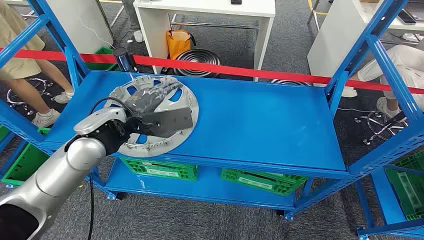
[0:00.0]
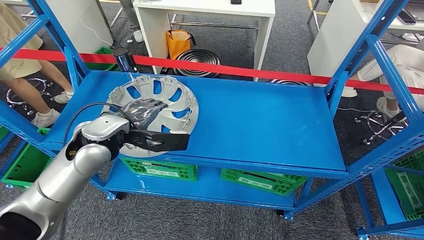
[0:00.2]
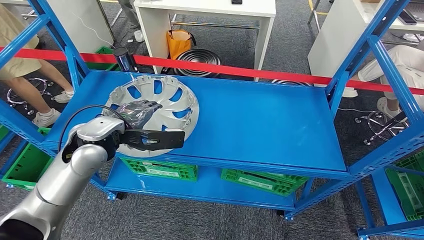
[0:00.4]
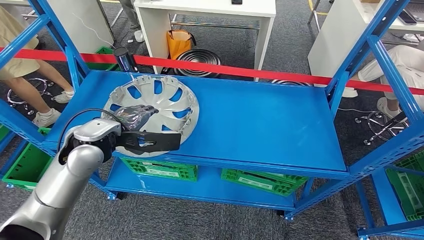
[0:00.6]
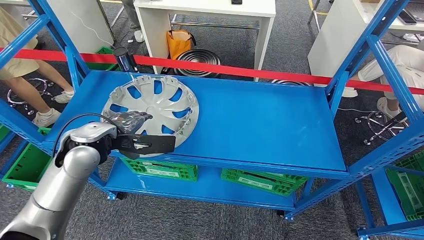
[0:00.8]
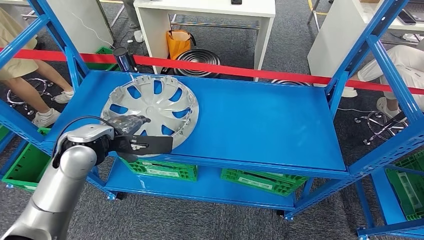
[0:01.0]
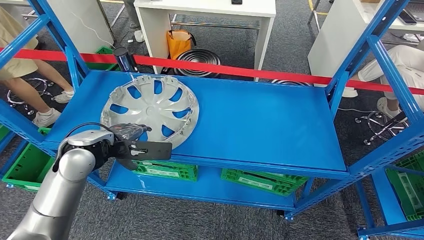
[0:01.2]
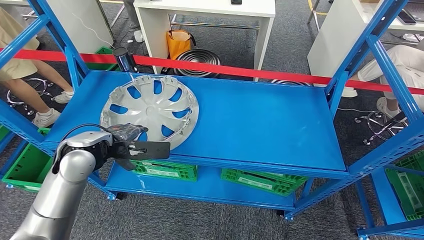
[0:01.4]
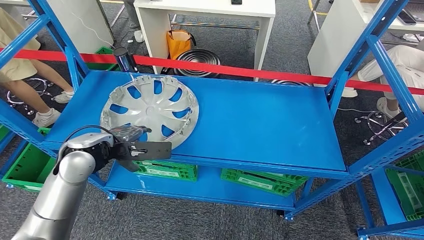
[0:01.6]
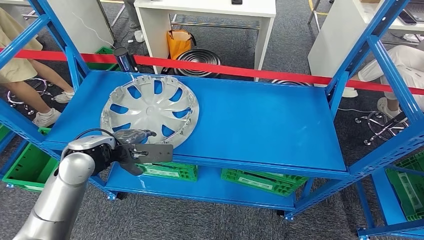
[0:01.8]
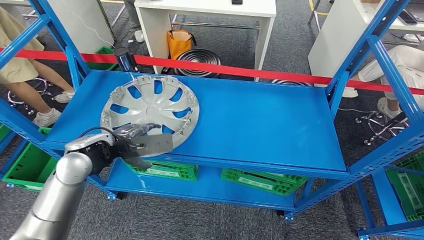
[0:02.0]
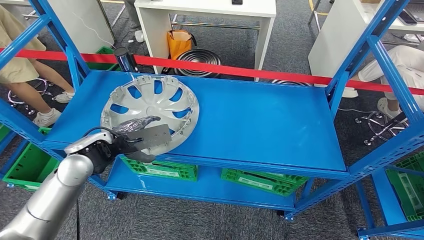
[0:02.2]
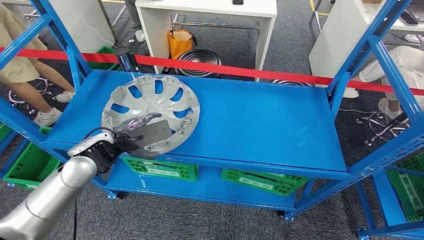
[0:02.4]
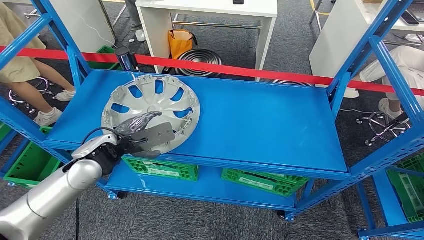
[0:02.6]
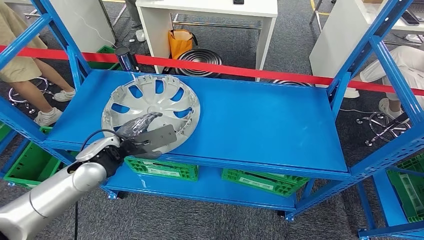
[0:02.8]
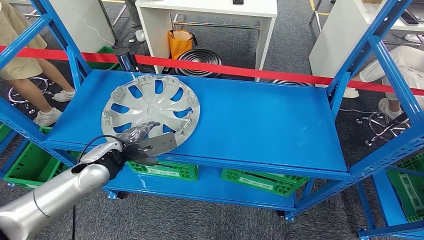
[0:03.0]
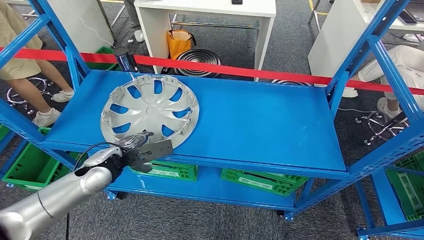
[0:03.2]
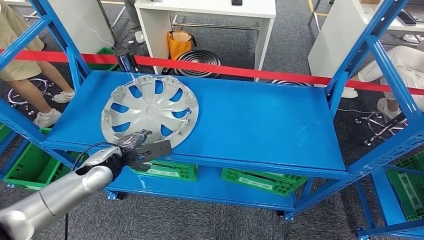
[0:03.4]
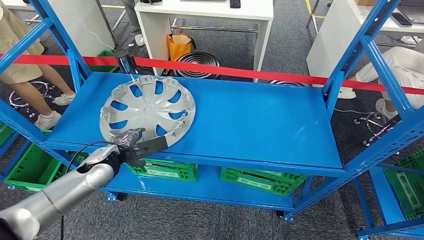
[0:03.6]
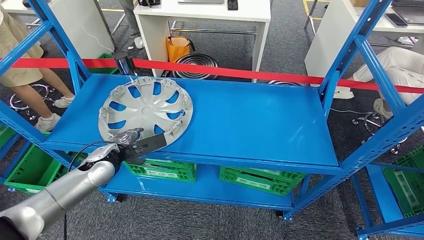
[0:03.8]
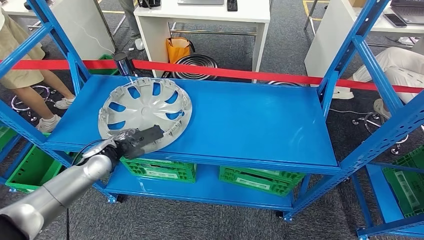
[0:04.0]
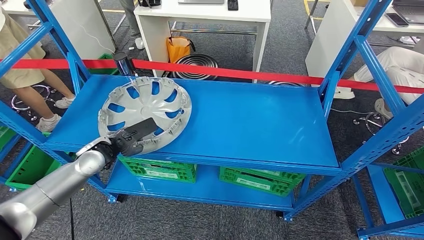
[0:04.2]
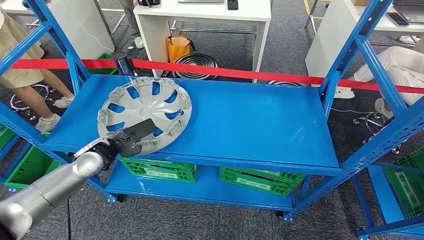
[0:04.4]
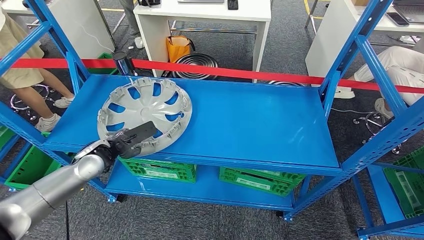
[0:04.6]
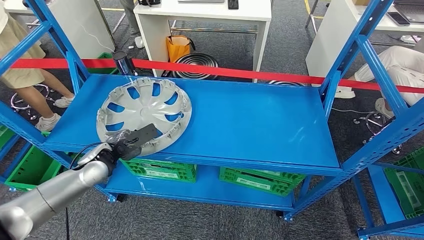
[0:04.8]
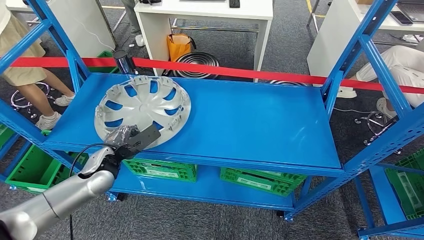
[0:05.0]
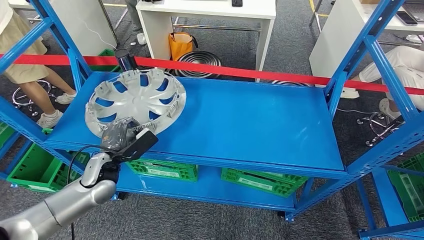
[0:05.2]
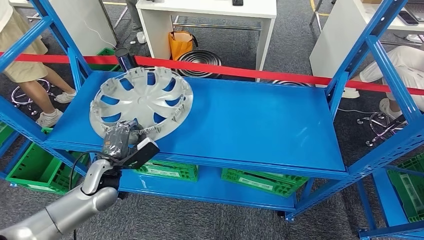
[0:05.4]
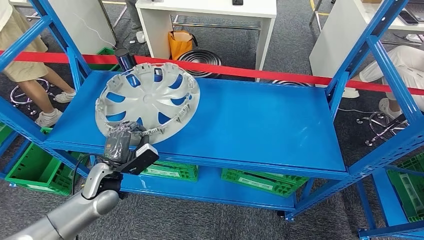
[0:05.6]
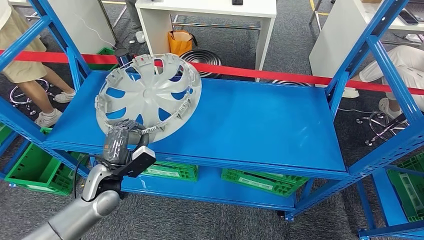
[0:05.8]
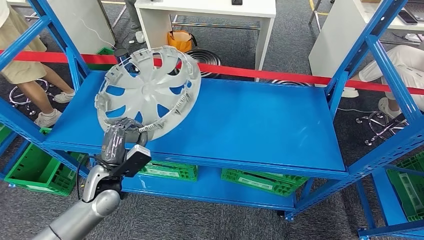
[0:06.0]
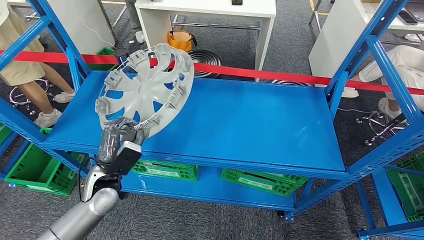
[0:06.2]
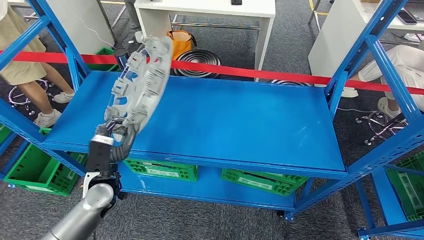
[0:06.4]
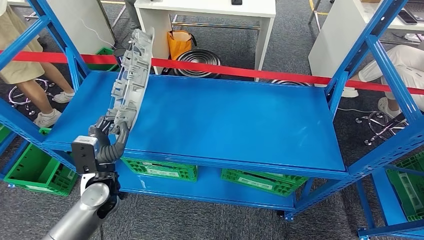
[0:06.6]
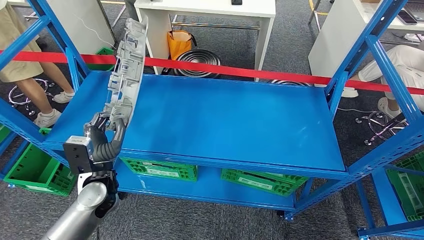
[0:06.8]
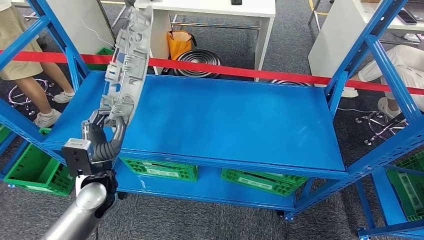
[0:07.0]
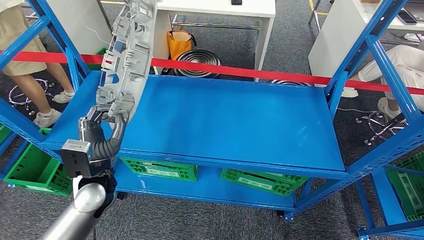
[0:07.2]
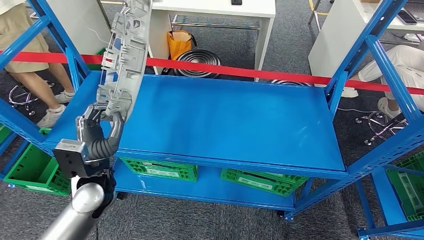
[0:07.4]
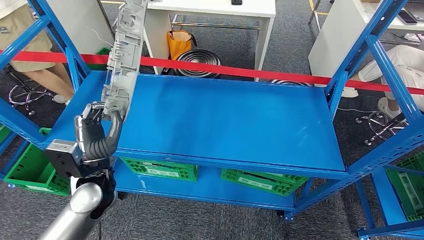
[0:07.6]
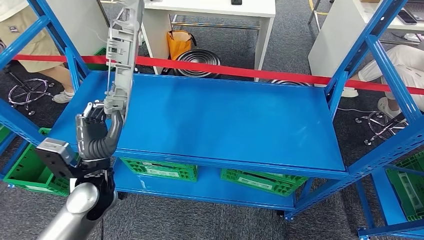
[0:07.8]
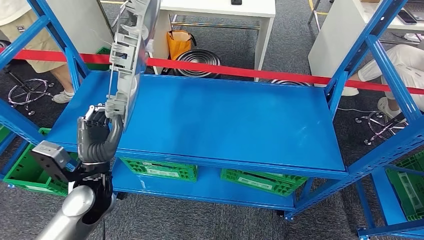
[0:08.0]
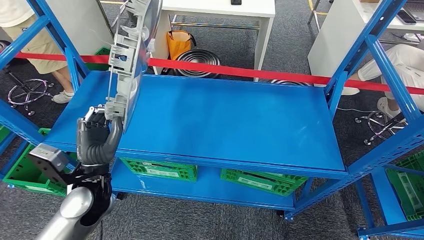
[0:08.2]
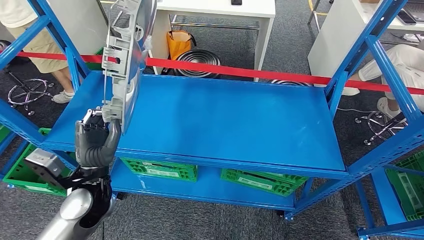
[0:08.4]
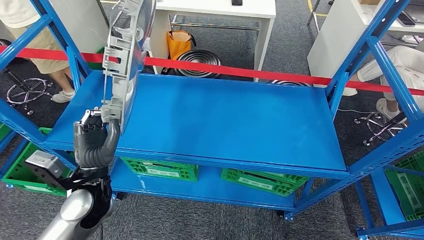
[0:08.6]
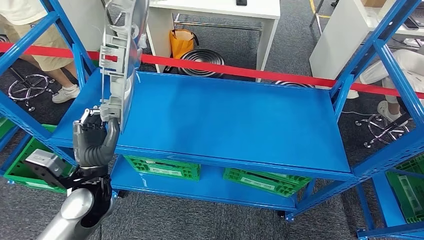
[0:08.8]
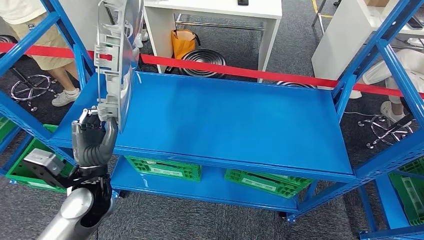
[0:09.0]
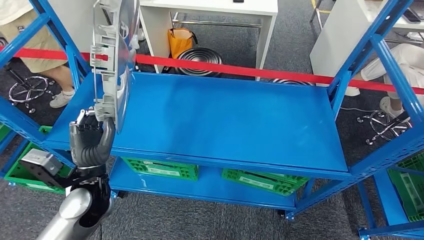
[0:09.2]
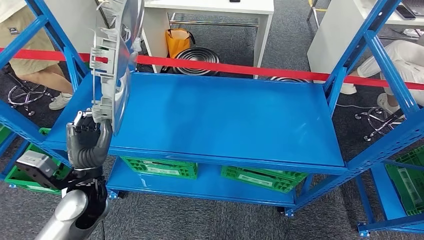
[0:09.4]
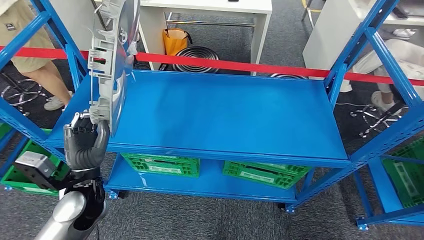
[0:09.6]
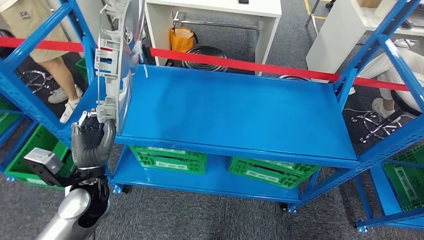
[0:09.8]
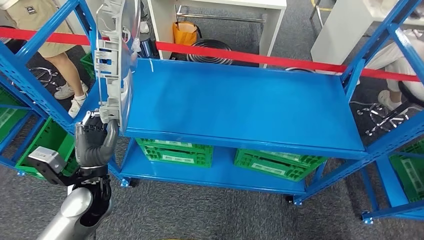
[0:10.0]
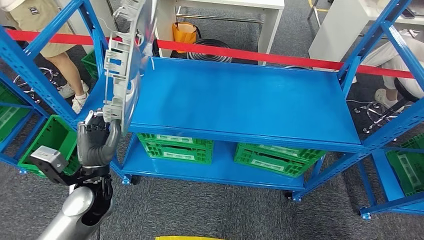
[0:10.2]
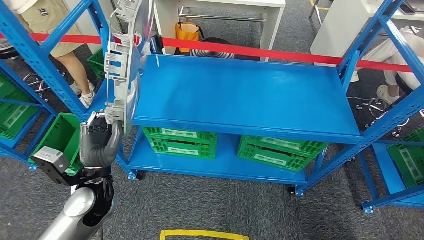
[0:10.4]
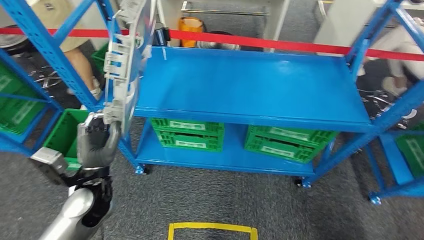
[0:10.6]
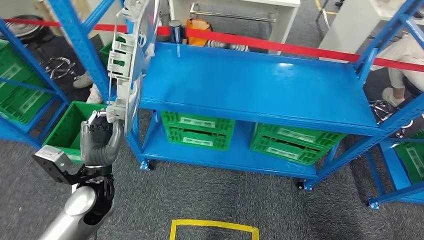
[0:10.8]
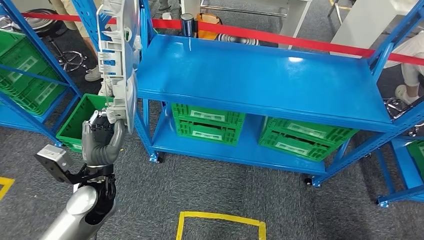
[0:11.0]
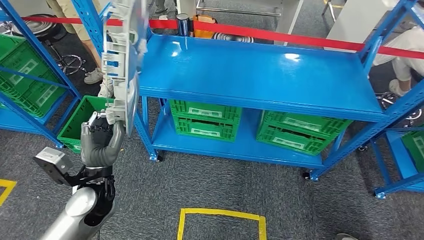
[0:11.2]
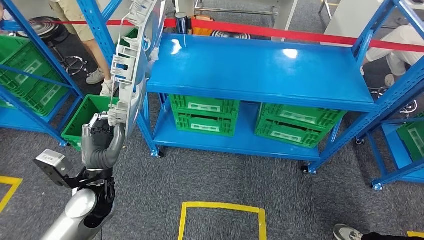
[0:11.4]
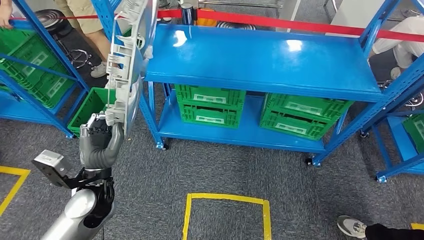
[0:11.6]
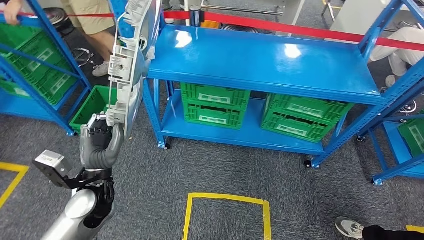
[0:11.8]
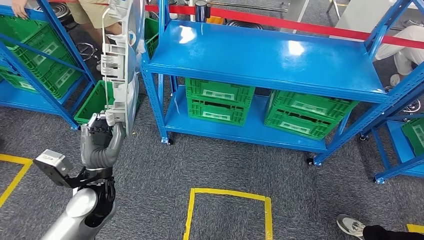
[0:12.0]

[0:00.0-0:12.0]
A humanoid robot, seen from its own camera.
Step, 0:00.0 to 0:07.2: Pick up the small component from the shelf.
0:01.6 to 0:03.0: The left hand heads downward, covering roughly 5 cm.
0:06.0 to 0:07.6: The left hand is displaced upward by roughly 5 cm.

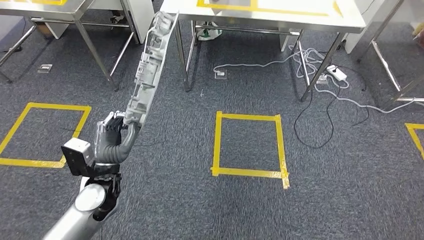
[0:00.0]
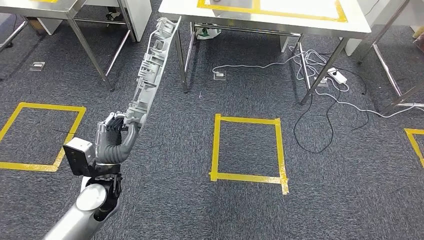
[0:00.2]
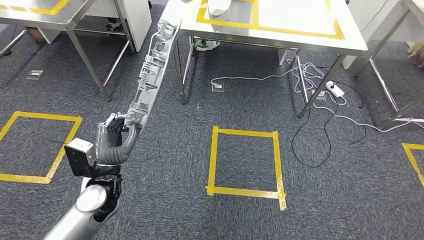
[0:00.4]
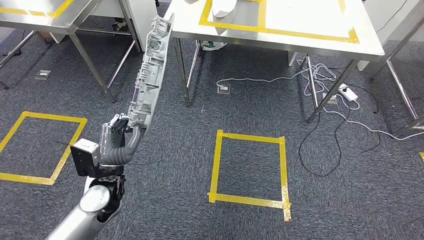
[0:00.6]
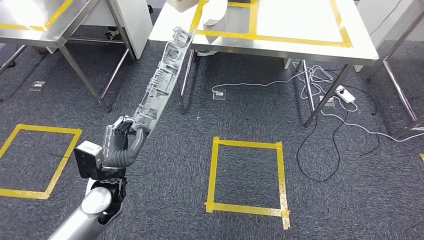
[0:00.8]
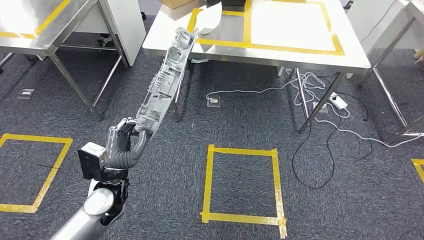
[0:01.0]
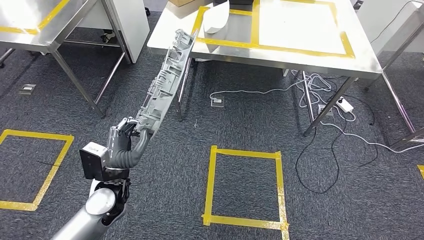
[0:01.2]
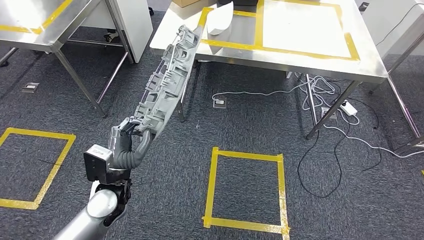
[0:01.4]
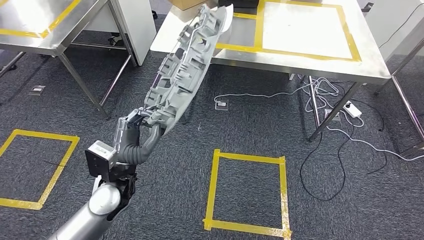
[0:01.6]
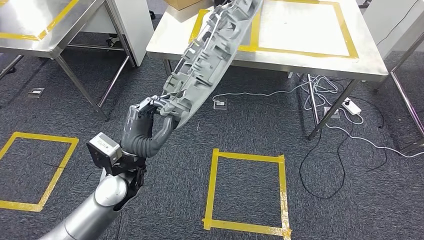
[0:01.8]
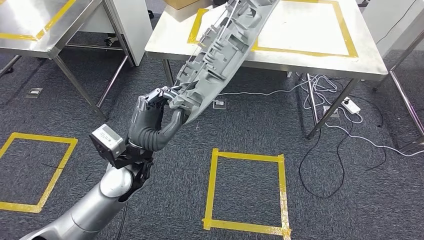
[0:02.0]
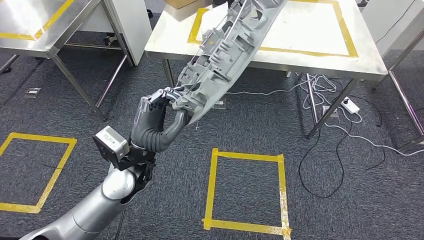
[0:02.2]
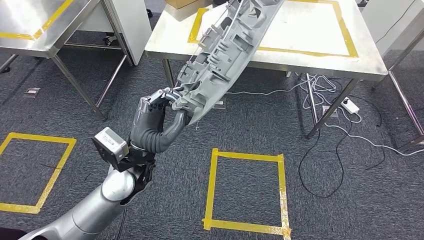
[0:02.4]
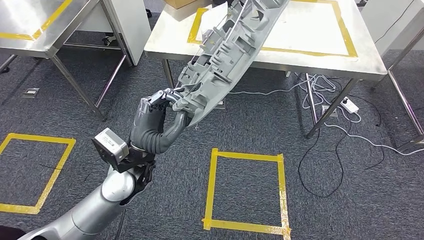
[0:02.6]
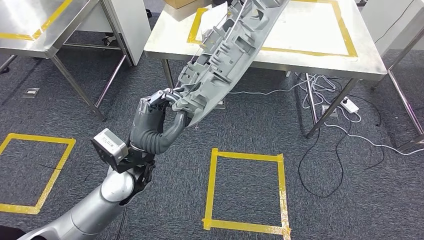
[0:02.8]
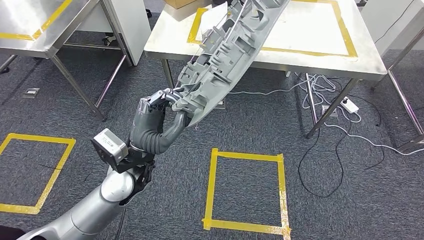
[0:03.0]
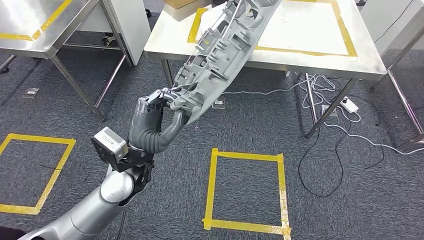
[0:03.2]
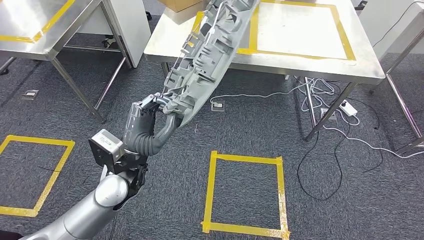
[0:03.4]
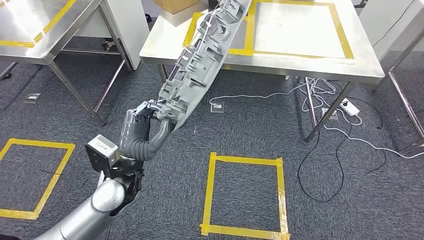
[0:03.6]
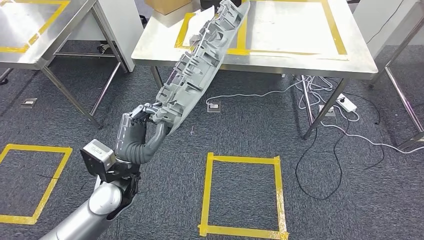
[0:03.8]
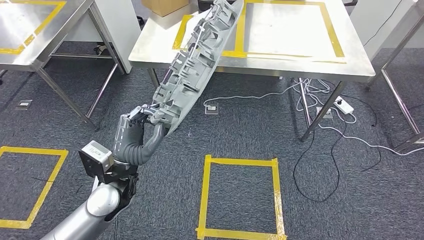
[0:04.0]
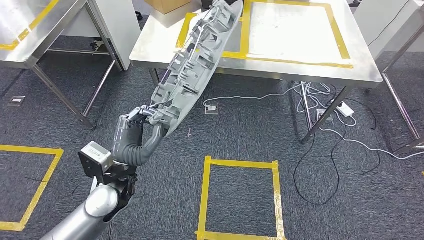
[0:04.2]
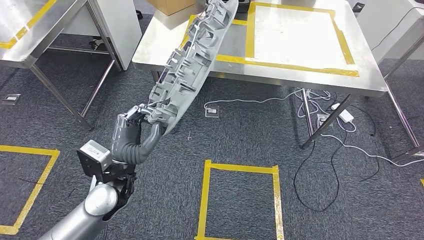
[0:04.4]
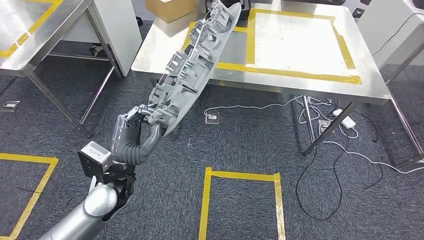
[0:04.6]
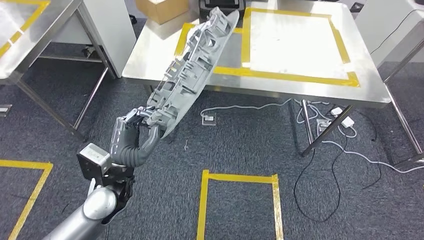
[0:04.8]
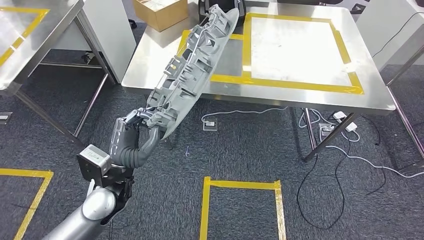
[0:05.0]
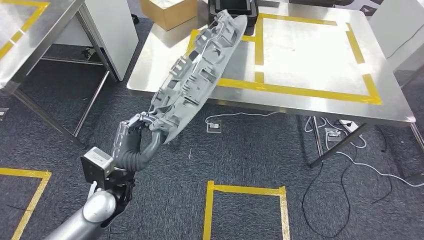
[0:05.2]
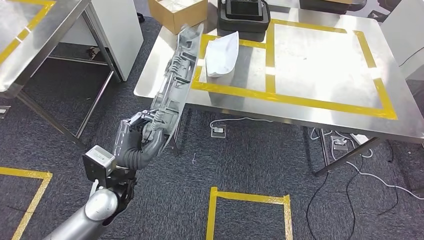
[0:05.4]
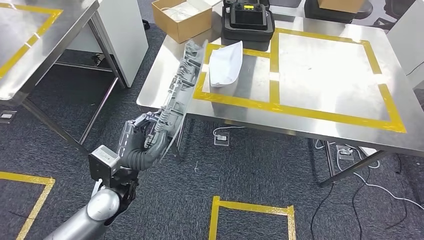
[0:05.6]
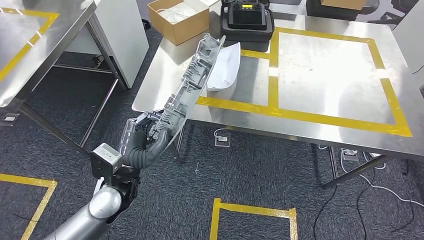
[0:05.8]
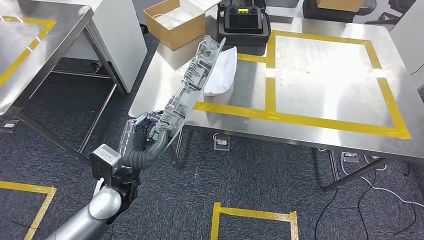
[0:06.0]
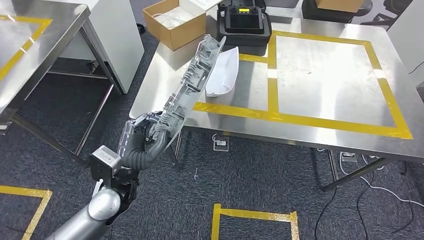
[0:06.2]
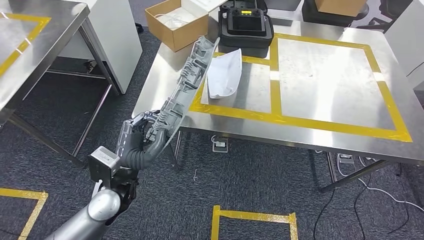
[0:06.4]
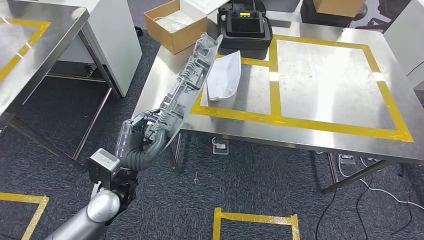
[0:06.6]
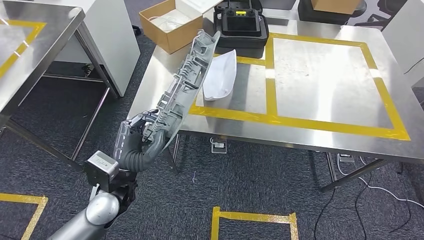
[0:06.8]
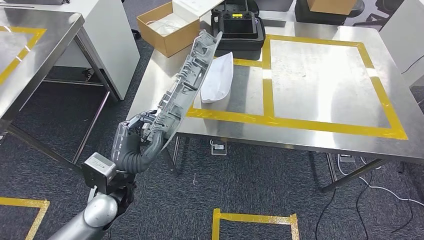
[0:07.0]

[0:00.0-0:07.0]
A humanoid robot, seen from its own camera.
Step, 0:00.0 to 0:03.2: Move the small component to the workbench.
